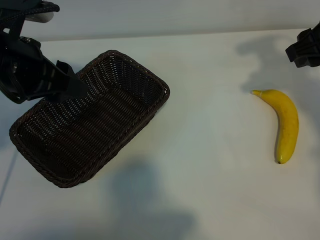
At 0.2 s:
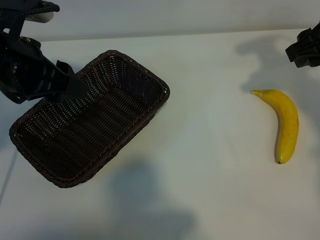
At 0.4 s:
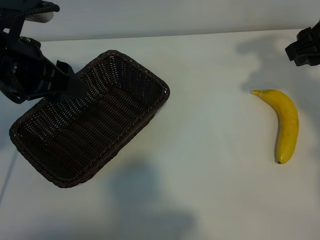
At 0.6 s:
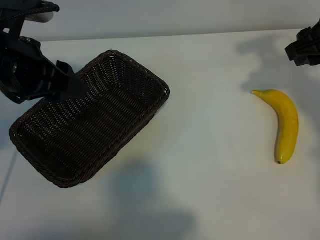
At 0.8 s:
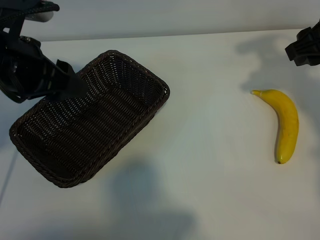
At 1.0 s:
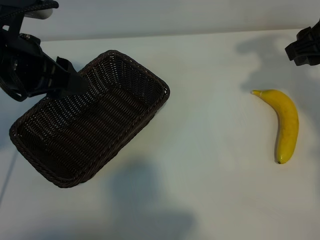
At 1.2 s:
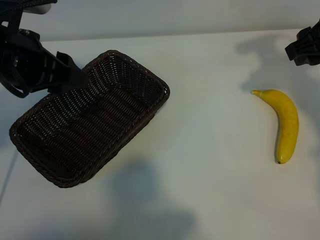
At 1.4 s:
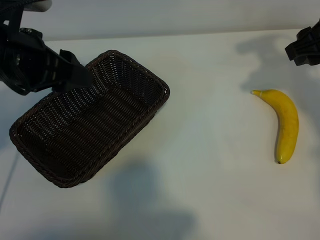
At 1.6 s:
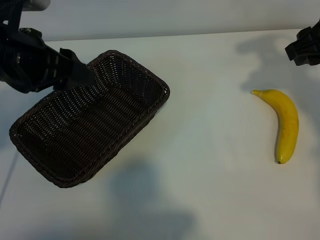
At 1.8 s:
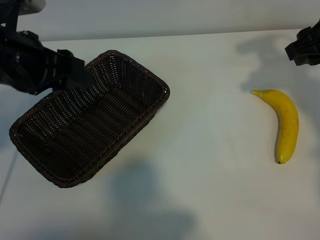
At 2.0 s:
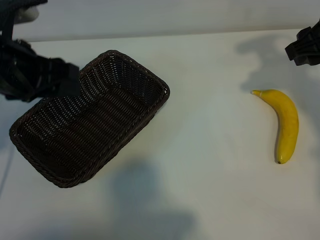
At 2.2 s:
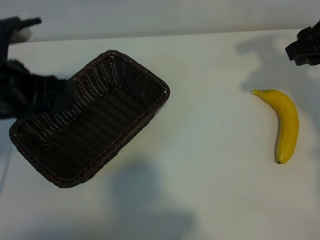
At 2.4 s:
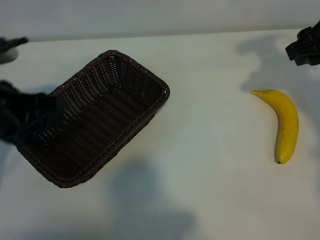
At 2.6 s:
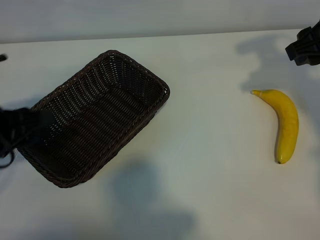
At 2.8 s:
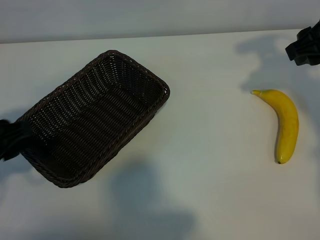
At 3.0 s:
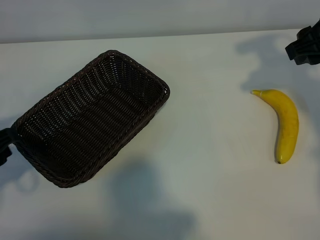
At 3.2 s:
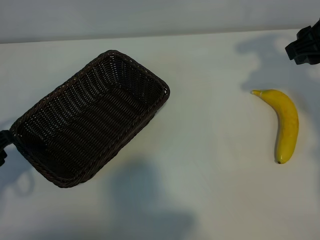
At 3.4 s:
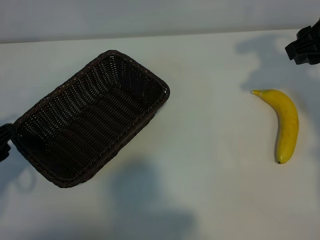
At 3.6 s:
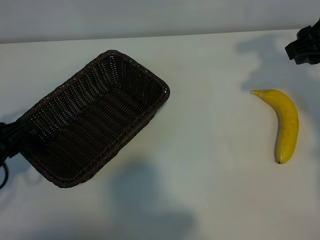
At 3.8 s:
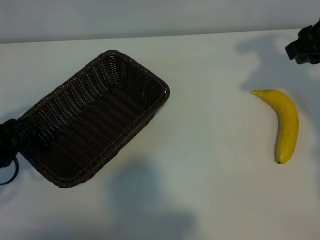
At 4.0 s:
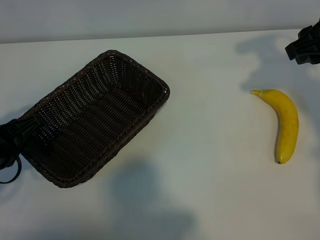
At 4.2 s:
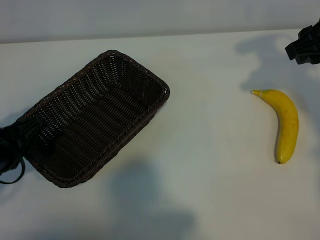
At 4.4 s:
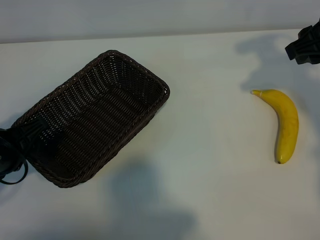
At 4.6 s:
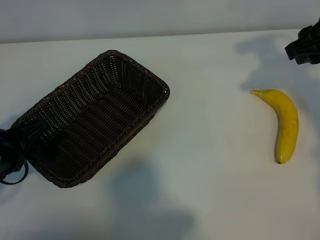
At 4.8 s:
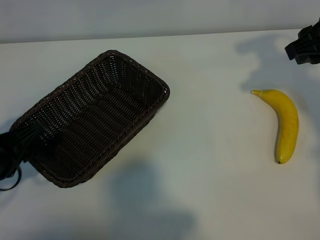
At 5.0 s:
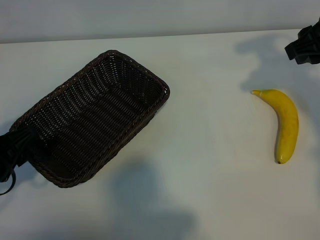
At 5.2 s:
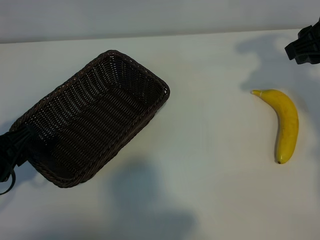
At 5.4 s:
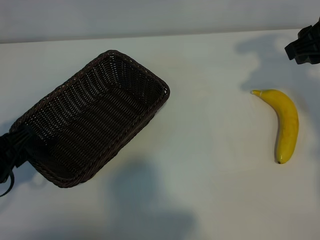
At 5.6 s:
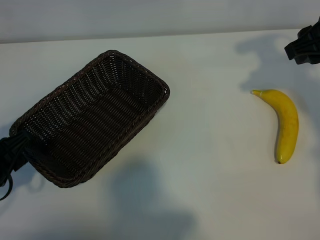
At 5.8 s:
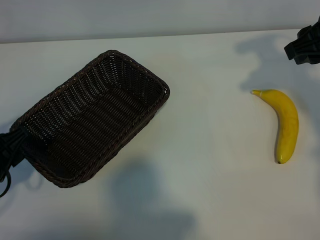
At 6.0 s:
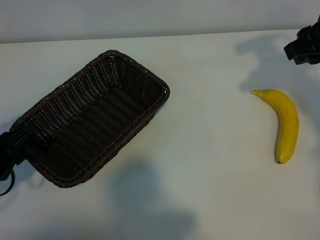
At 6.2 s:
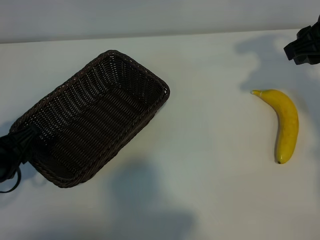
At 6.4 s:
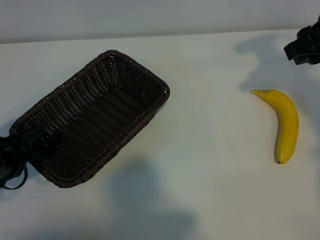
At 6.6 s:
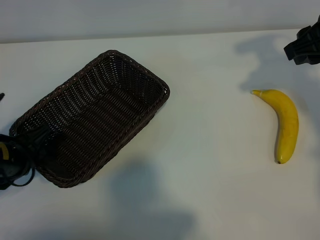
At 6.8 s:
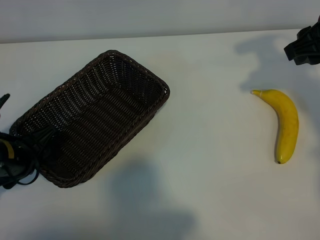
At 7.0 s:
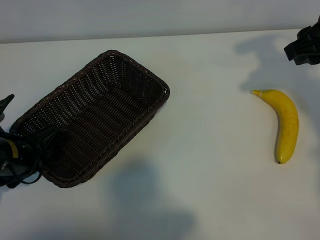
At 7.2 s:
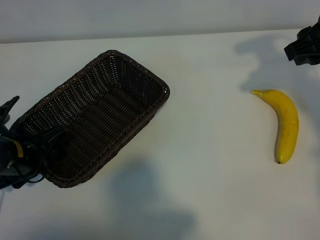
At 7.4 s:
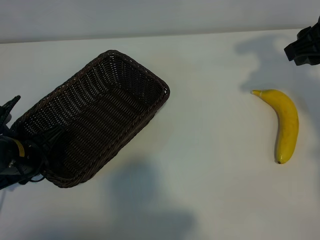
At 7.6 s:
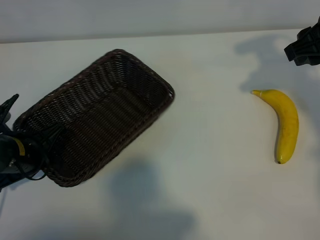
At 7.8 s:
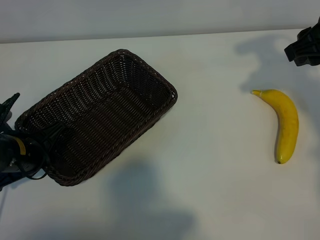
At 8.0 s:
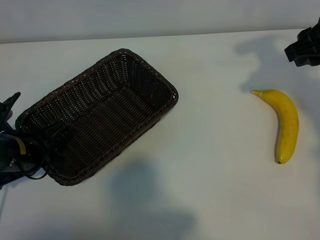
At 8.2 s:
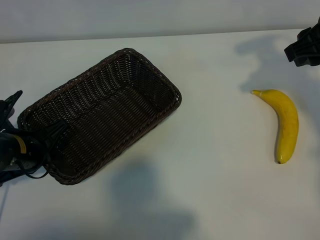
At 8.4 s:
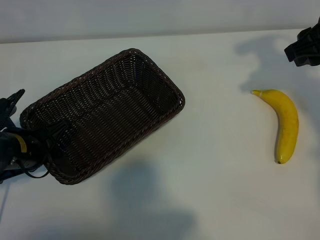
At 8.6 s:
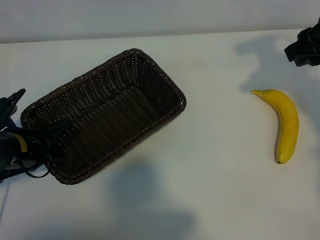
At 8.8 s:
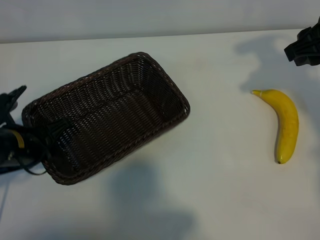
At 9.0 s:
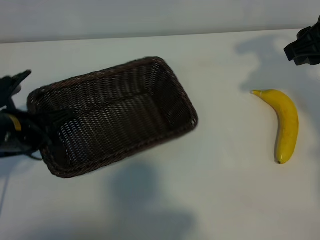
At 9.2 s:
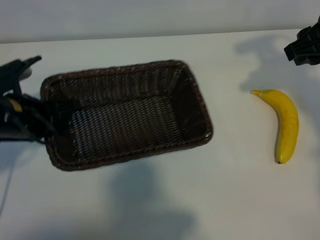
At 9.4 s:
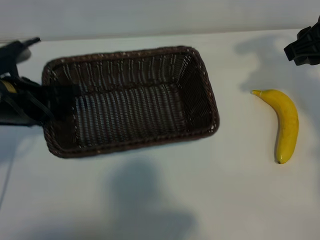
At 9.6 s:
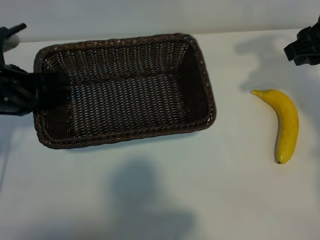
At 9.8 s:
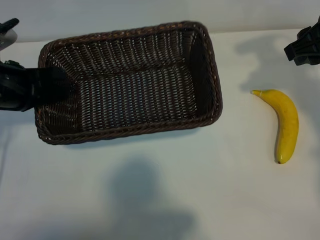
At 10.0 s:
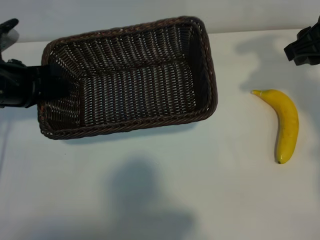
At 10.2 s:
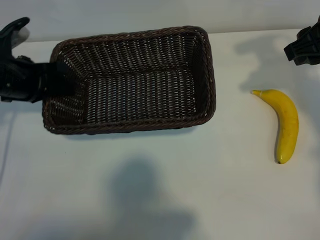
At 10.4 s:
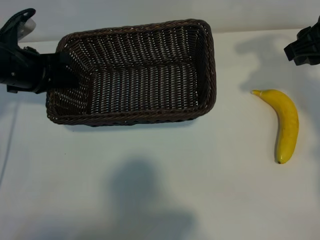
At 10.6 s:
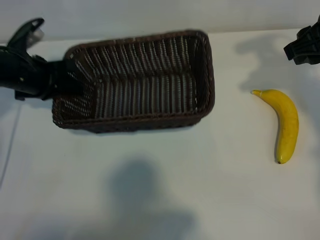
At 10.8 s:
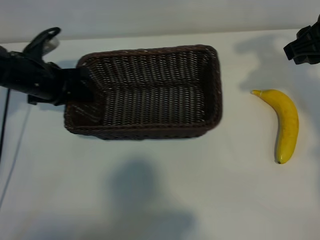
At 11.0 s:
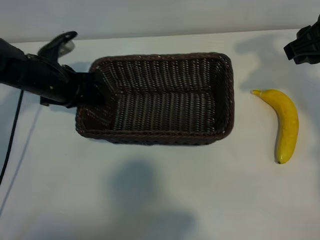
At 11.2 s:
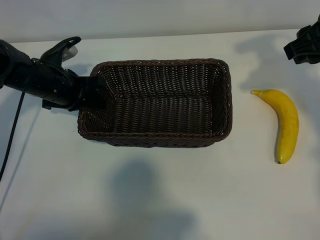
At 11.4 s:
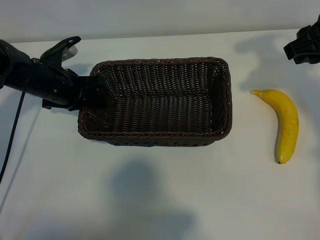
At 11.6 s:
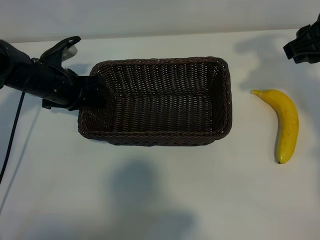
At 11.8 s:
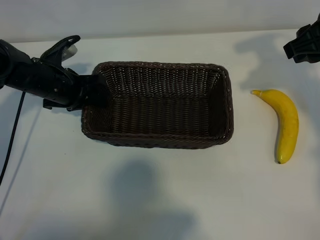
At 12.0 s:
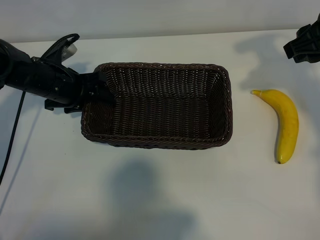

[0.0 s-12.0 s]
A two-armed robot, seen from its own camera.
Task of the whole recording: pick up the banana and put it into the basket.
Step, 0.8 to 7.6 s: Grasp the basket with the left gripper.

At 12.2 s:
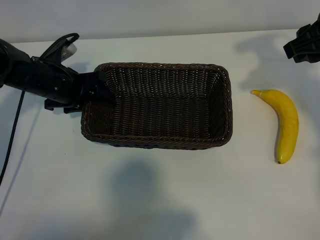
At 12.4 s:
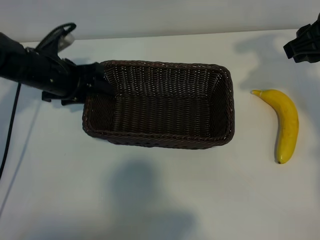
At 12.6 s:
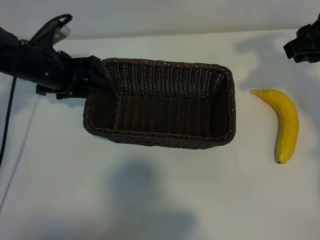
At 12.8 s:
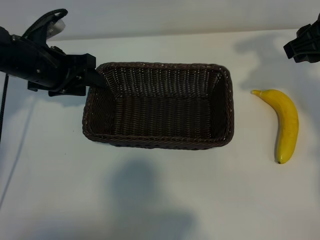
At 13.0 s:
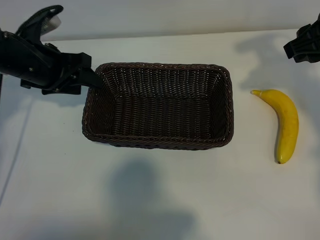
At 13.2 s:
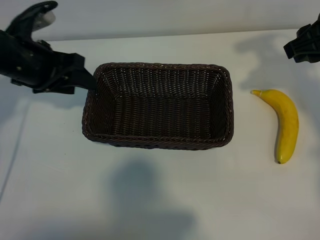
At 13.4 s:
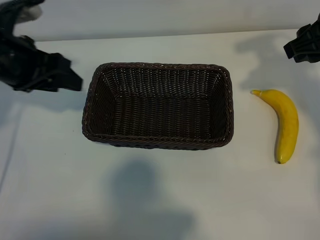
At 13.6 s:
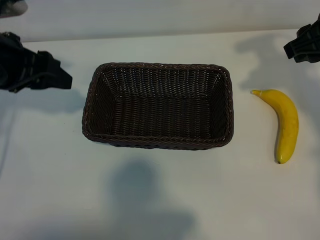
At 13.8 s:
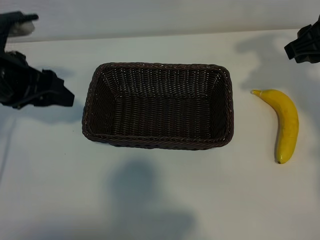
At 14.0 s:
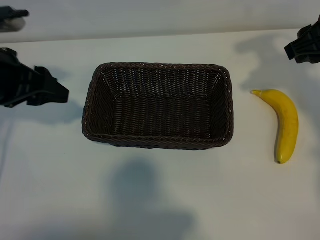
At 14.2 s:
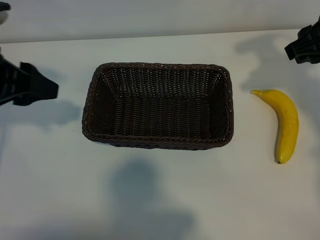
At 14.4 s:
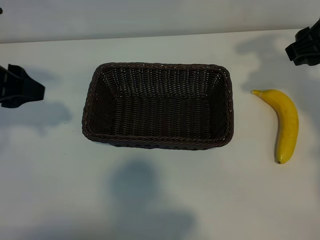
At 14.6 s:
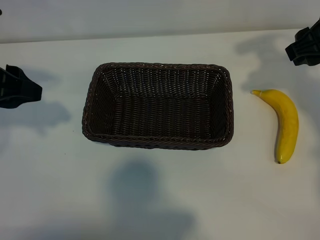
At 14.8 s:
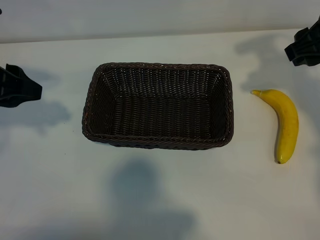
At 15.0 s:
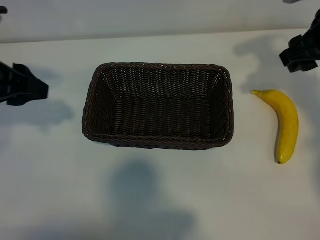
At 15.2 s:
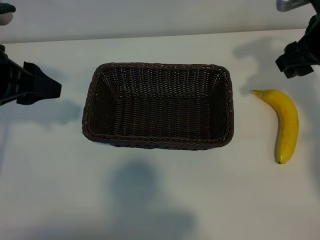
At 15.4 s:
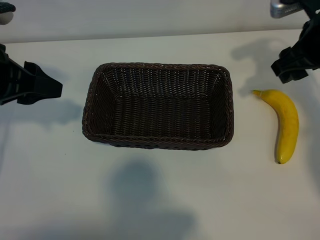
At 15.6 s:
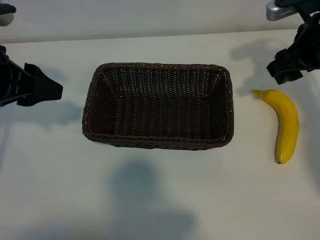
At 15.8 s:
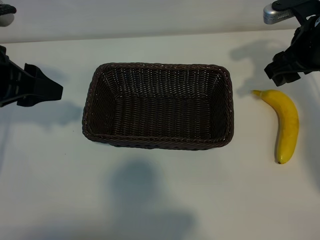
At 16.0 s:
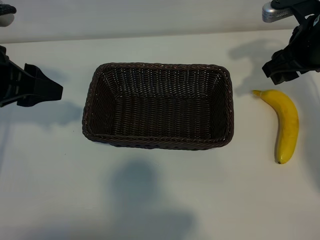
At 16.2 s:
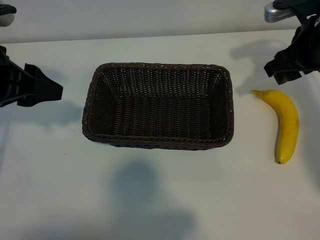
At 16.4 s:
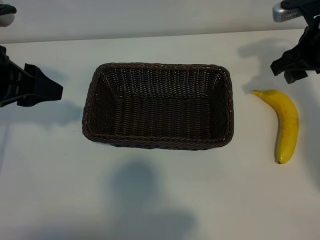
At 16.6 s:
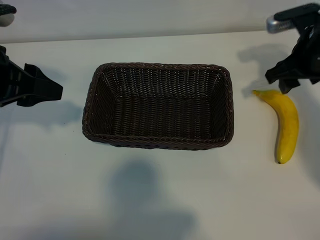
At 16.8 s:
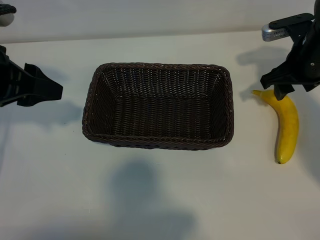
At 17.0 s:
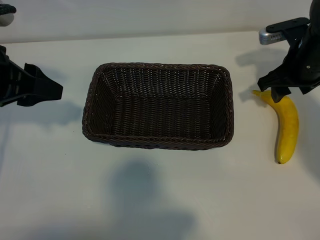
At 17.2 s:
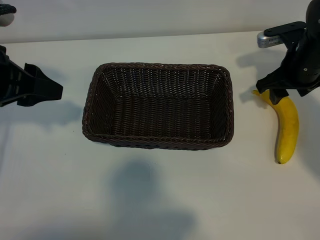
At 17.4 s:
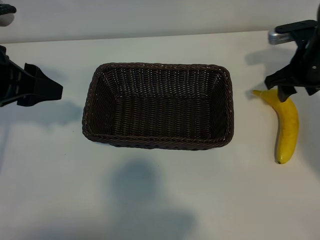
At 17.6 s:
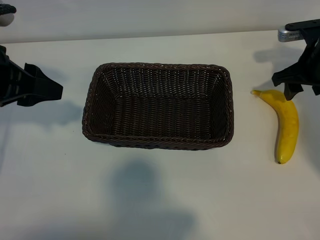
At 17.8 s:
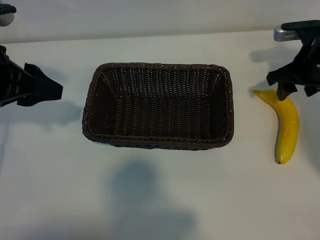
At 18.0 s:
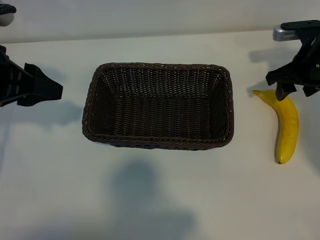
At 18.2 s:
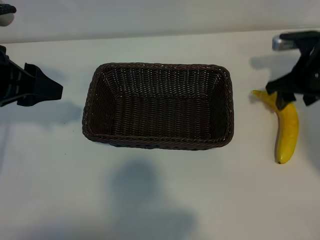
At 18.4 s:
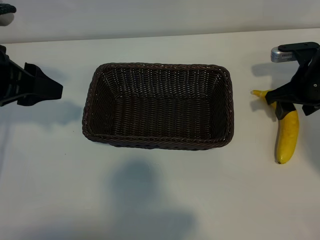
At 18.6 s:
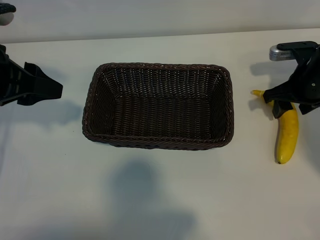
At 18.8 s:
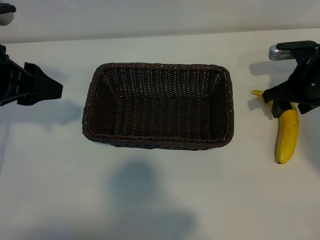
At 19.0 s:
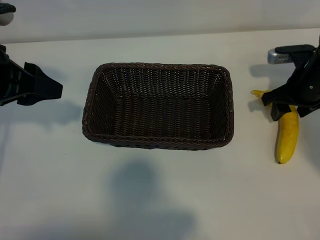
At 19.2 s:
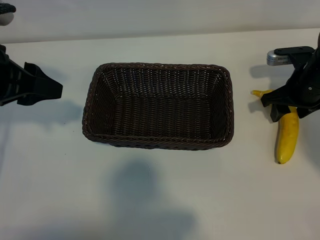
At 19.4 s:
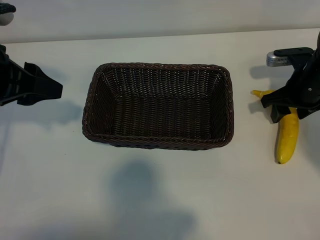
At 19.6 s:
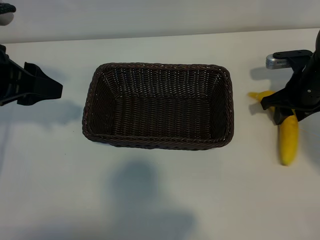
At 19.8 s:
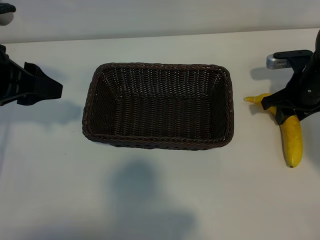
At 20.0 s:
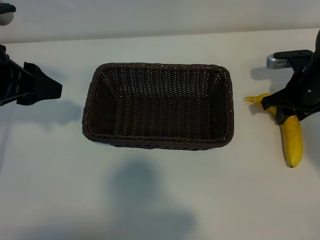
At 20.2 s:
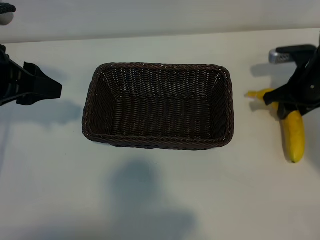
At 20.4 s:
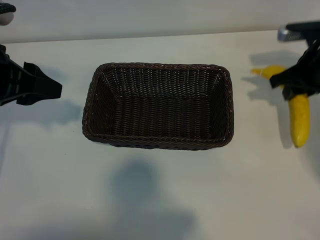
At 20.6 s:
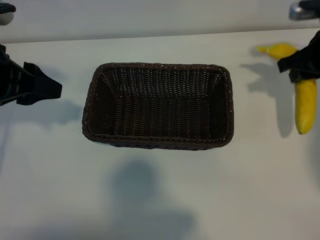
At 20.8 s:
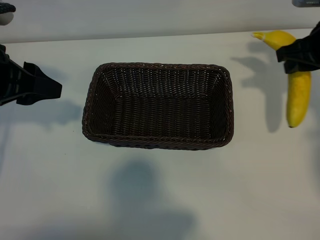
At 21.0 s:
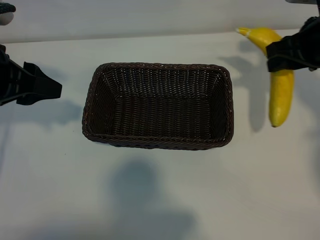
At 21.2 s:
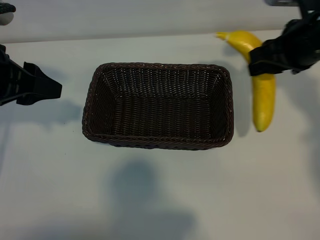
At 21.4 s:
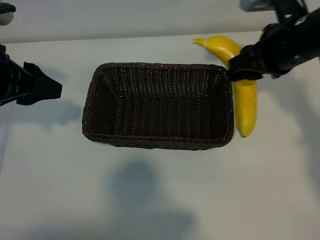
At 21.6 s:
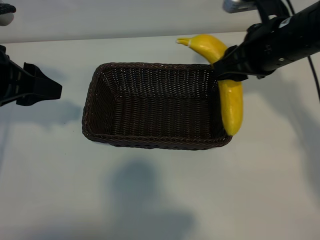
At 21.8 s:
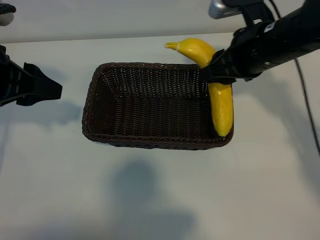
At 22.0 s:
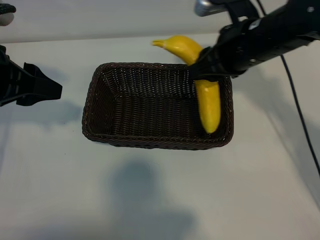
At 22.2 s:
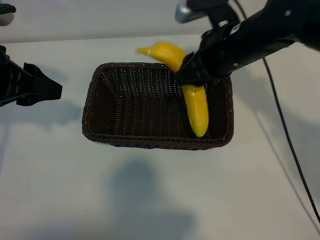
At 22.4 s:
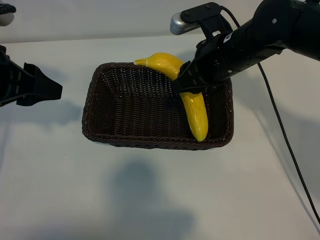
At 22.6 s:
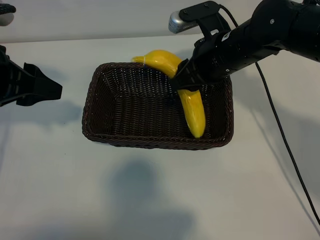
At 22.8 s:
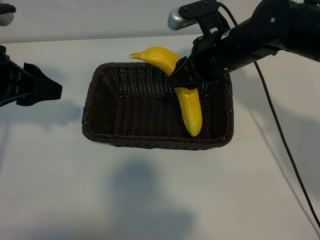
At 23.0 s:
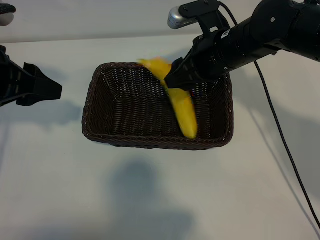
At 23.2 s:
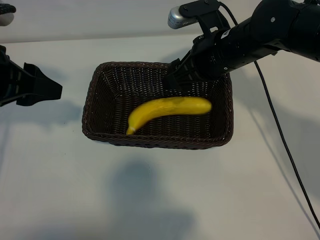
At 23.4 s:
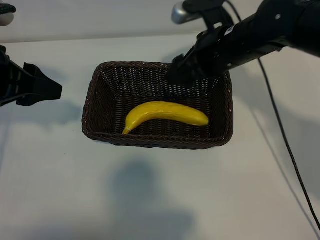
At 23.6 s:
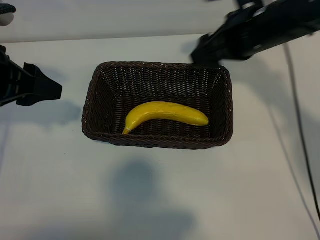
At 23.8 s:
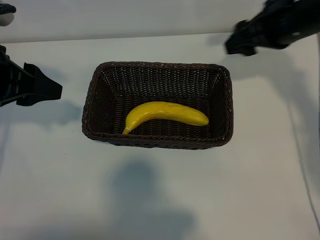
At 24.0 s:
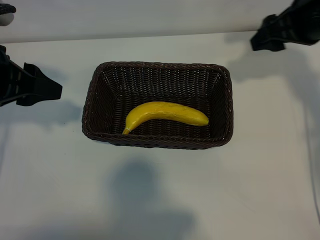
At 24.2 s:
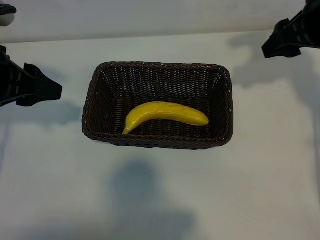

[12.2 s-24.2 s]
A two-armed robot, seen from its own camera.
Task of the whole recording: pick up the banana and put it into the basket.
Step, 13.2 to 19.8 s: Grasp the banana with right gripper.
Step, 20.2 to 23.2 s: Place the banana in the basket with right gripper.
